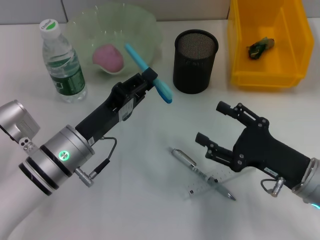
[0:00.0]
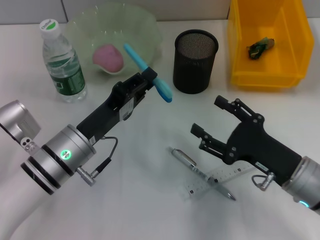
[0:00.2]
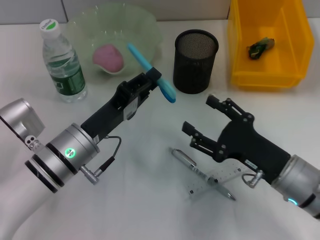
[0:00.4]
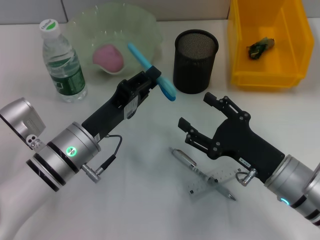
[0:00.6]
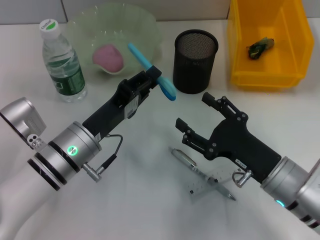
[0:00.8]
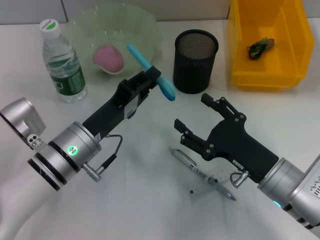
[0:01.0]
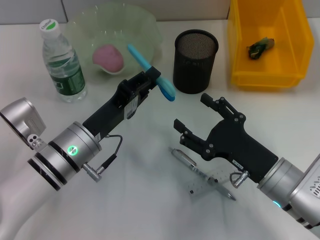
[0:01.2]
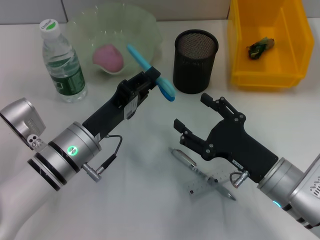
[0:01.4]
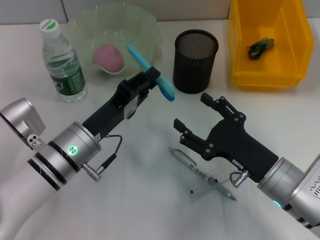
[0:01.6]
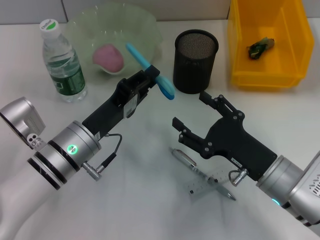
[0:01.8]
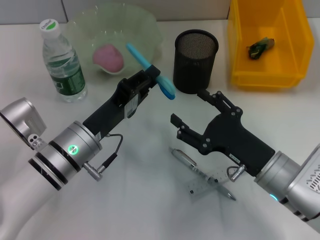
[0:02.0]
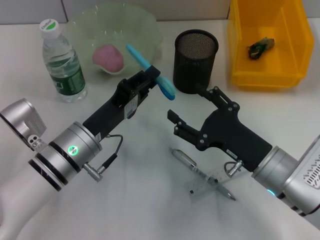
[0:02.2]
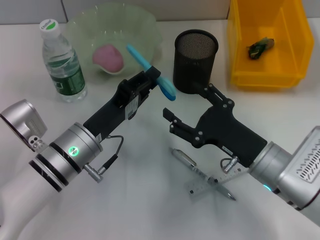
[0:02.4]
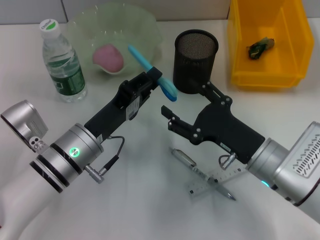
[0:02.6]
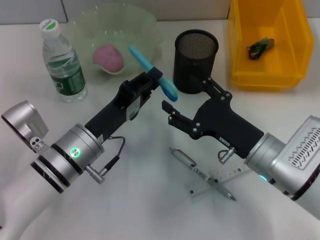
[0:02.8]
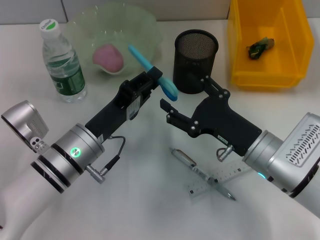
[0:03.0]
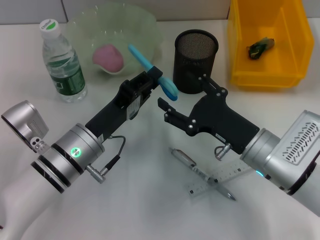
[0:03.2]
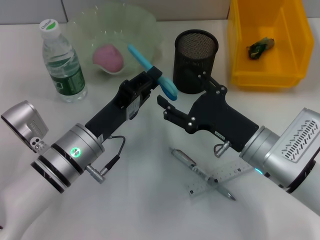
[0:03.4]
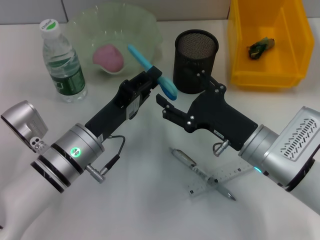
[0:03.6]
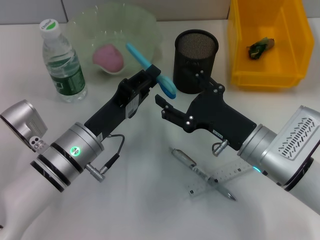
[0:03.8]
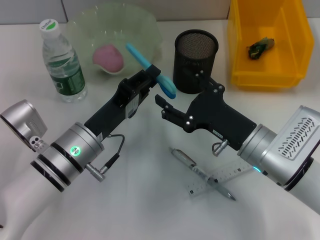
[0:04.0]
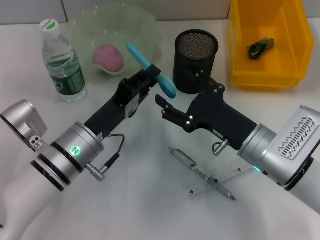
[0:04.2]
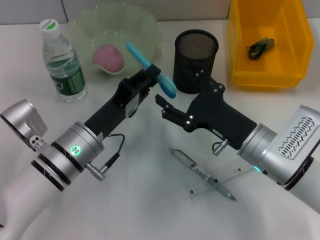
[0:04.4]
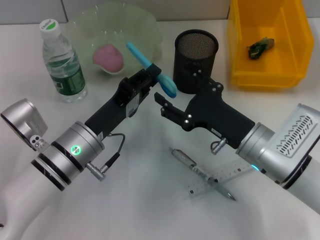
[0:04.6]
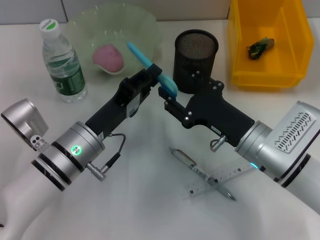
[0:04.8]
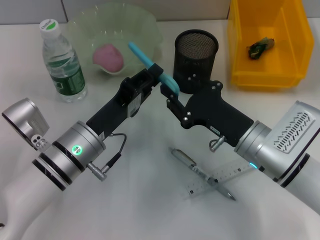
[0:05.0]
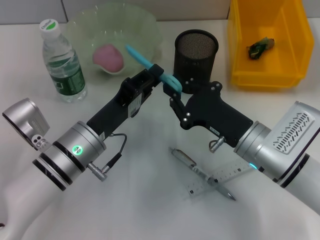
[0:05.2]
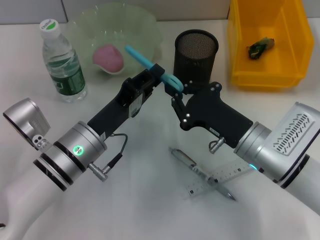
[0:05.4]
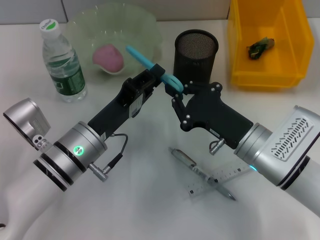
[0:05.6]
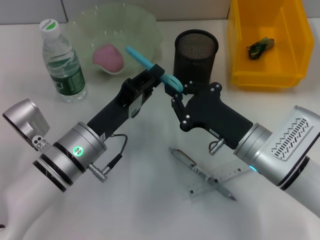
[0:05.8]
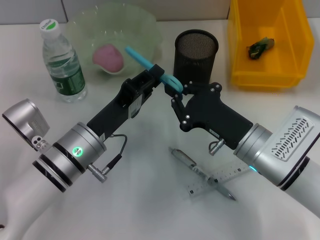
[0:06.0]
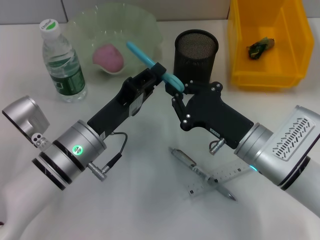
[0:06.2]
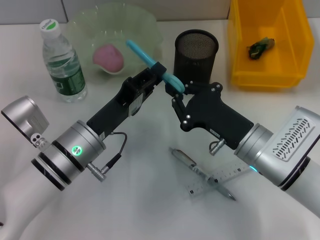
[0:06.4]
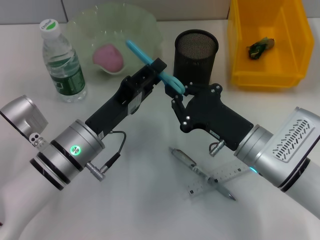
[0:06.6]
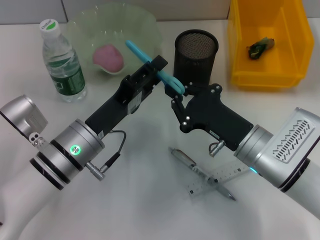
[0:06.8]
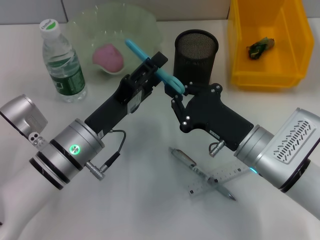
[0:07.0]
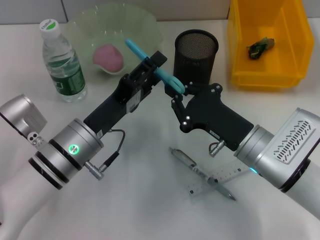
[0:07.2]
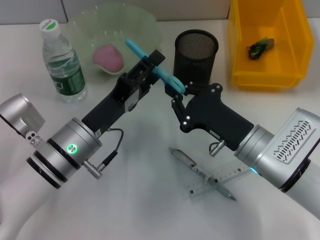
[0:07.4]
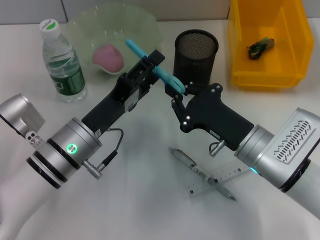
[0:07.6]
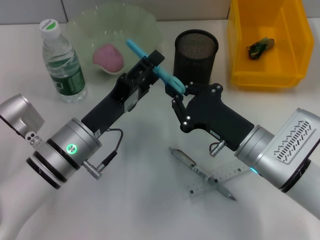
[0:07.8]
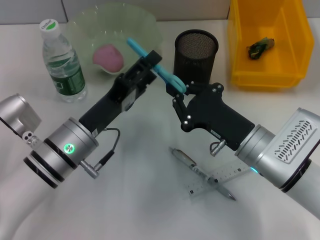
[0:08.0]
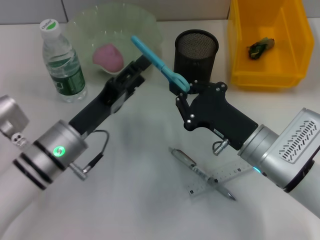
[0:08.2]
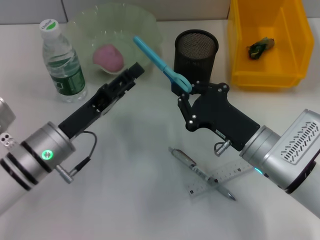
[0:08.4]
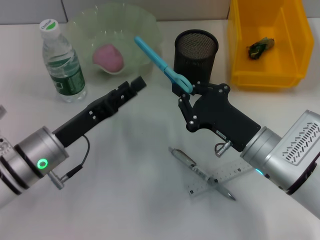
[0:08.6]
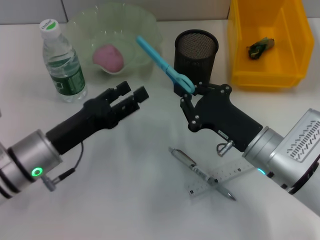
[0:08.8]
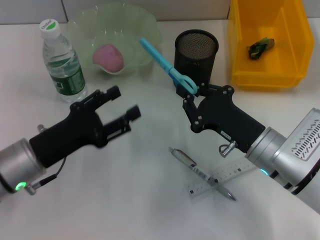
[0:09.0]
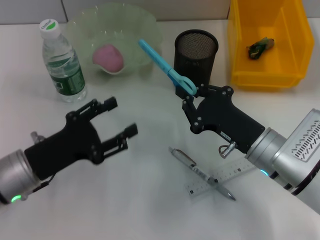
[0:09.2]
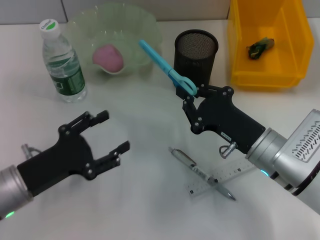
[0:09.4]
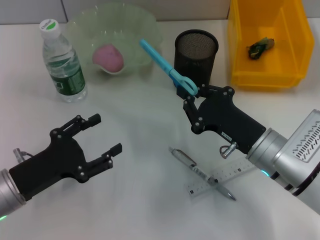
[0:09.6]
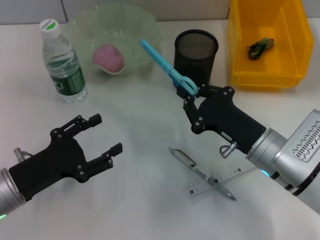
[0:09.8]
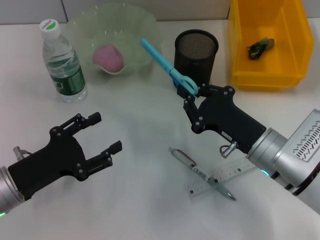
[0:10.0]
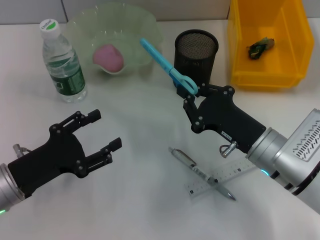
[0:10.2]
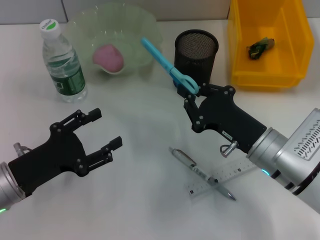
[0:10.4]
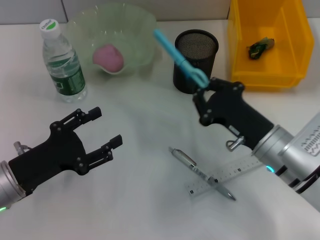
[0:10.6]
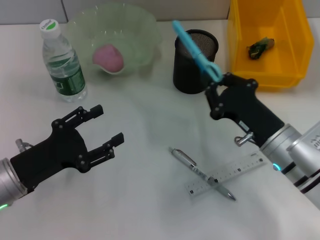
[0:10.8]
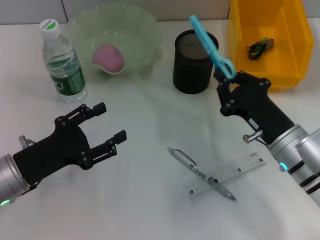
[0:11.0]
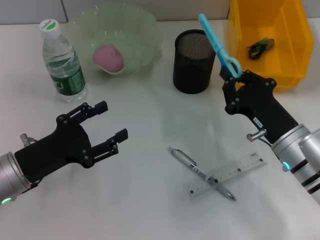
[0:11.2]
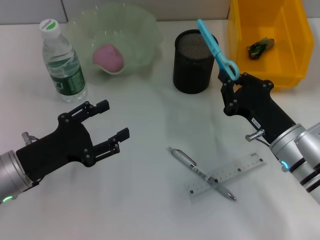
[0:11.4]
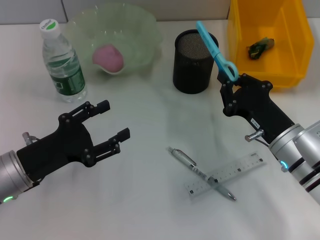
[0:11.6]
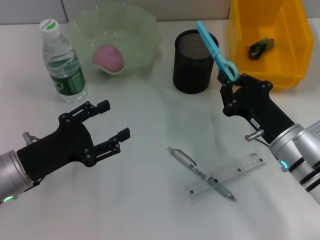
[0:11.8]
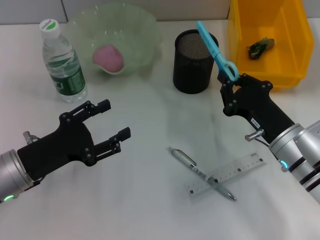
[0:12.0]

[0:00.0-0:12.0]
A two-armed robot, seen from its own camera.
Step, 0:00.0 to 0:06.8: Pass the blue scissors from the left hand to the right hand.
0:00.0 to 0:01.6: The right gripper ends up roughly 5 cm from where it was.
0:01.6 to 0:03.0: There are only small adjustments of the grippers.
0:03.0 to 0:04.4: Both grippers stay put.
0:04.4 to 0:06.0: The right gripper closes.
0:06.0 to 0:07.6: The left gripper opens.
0:07.6 to 0:09.0: The left gripper moves to the left, approximately 10 cm.
0:10.4 to 0:12.0: The grippers move only a little.

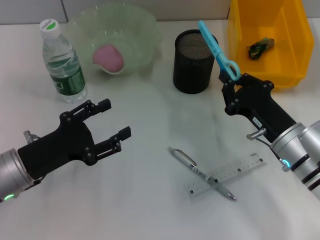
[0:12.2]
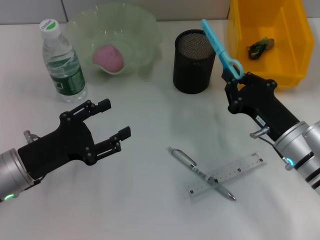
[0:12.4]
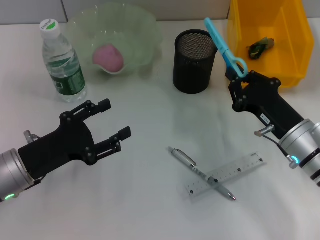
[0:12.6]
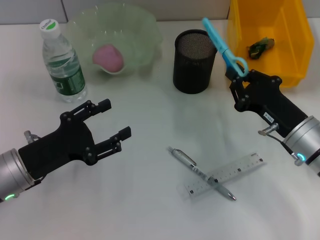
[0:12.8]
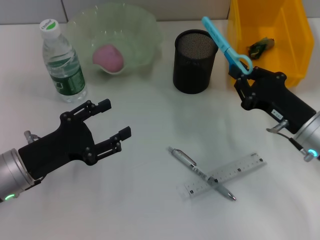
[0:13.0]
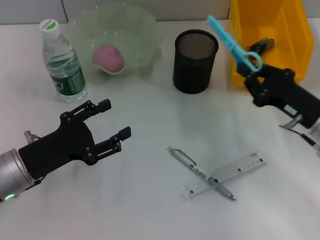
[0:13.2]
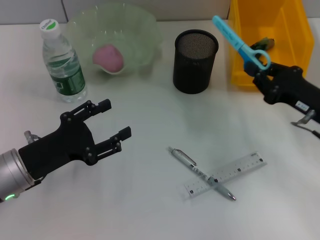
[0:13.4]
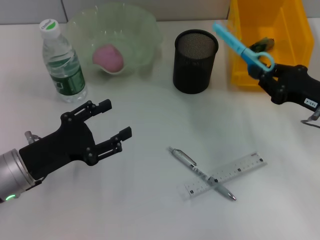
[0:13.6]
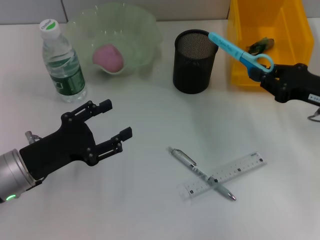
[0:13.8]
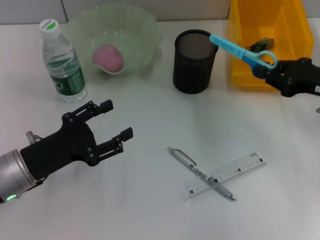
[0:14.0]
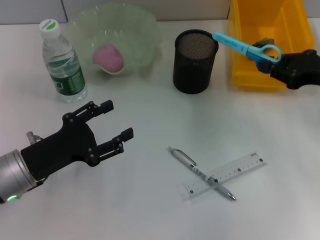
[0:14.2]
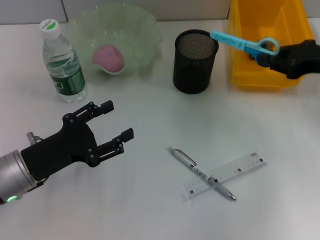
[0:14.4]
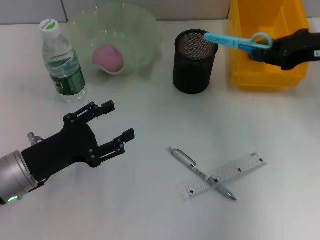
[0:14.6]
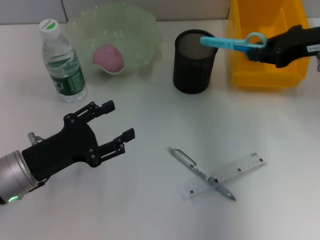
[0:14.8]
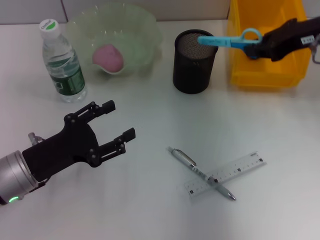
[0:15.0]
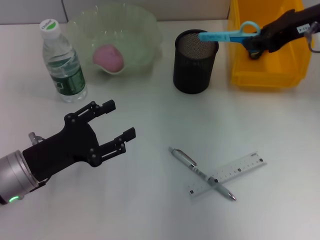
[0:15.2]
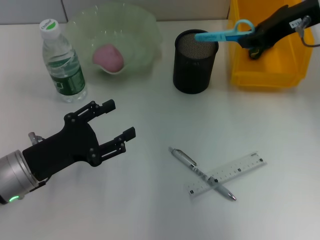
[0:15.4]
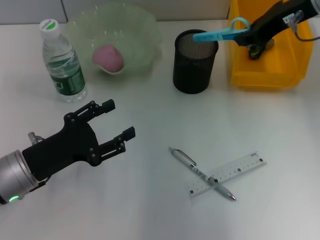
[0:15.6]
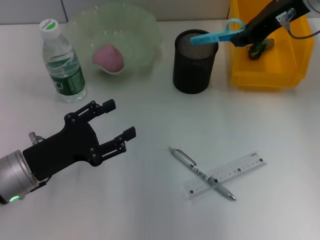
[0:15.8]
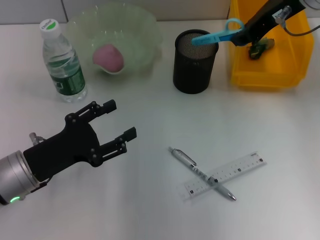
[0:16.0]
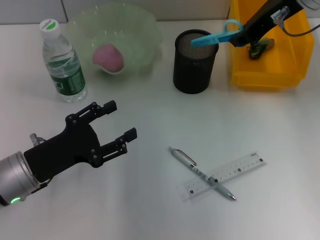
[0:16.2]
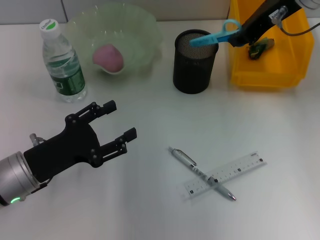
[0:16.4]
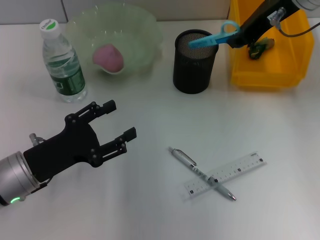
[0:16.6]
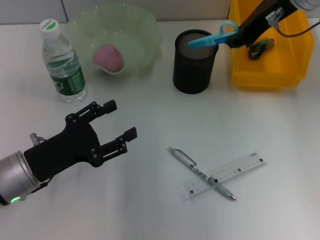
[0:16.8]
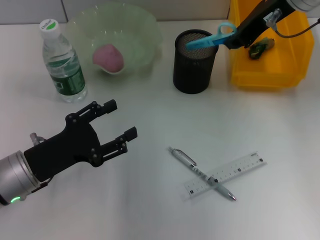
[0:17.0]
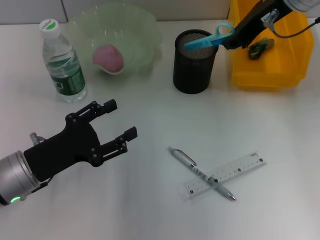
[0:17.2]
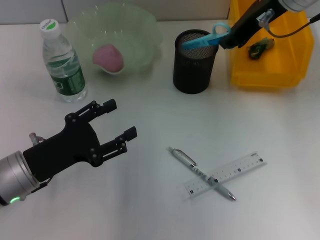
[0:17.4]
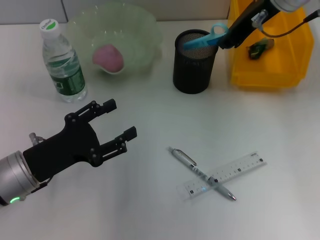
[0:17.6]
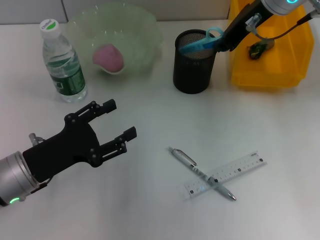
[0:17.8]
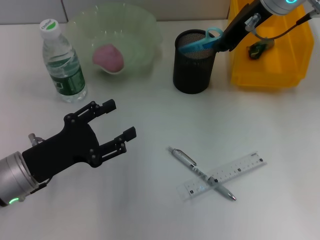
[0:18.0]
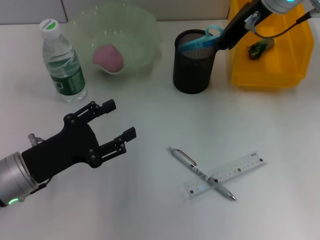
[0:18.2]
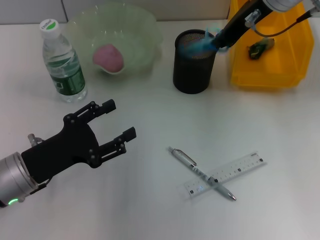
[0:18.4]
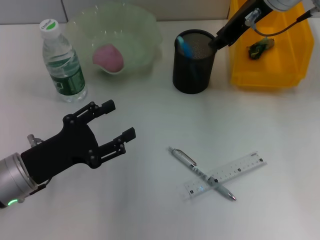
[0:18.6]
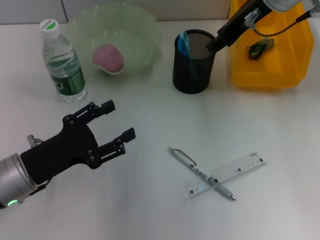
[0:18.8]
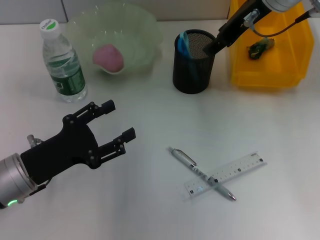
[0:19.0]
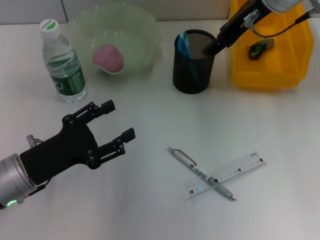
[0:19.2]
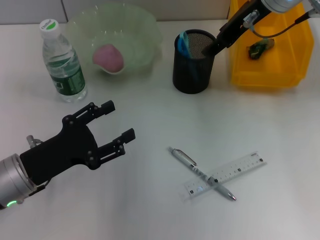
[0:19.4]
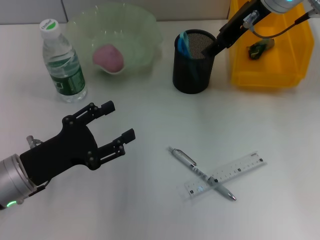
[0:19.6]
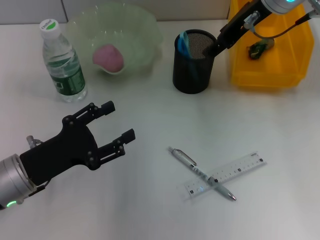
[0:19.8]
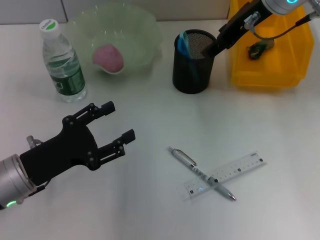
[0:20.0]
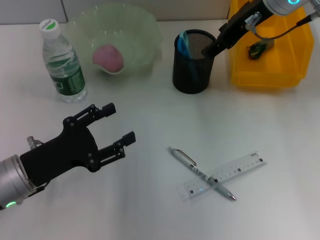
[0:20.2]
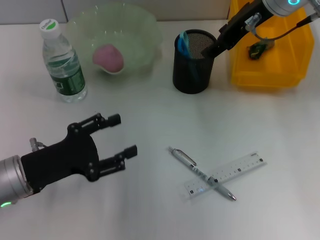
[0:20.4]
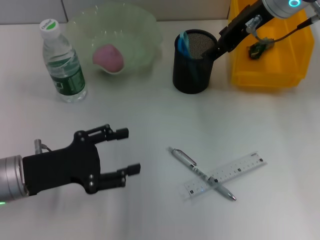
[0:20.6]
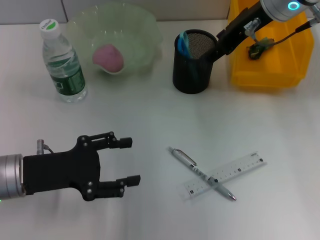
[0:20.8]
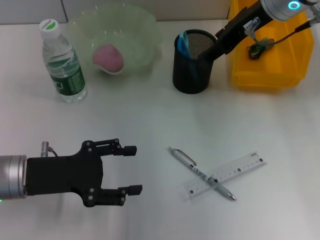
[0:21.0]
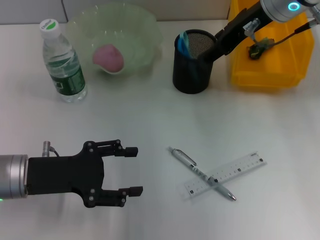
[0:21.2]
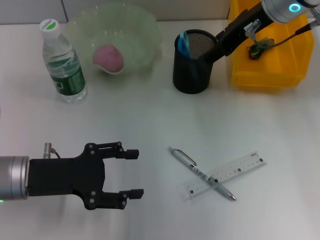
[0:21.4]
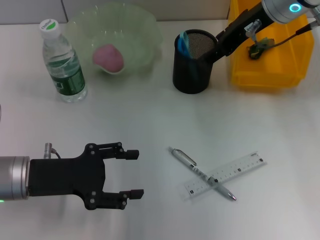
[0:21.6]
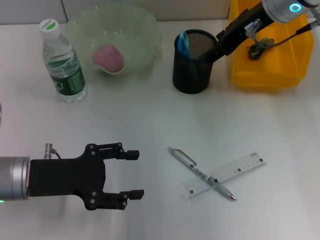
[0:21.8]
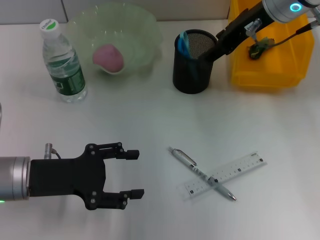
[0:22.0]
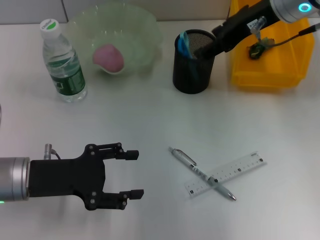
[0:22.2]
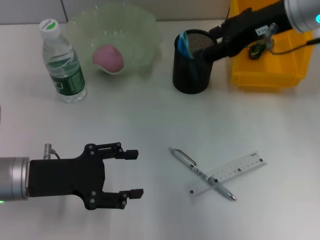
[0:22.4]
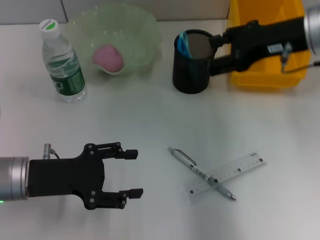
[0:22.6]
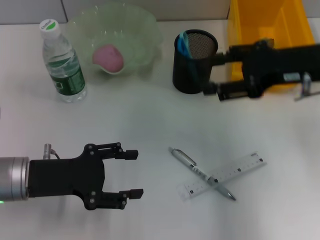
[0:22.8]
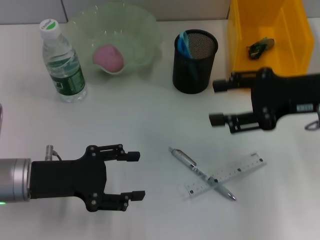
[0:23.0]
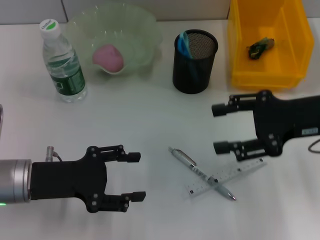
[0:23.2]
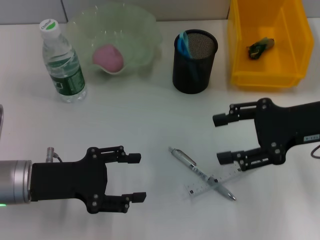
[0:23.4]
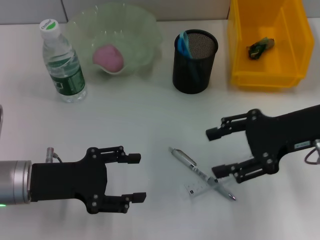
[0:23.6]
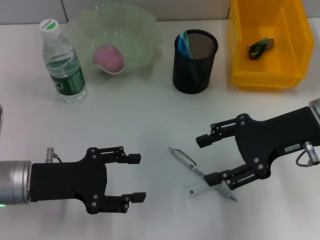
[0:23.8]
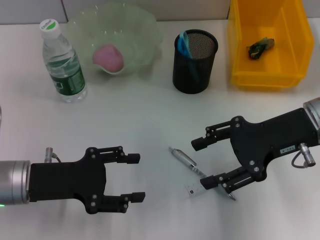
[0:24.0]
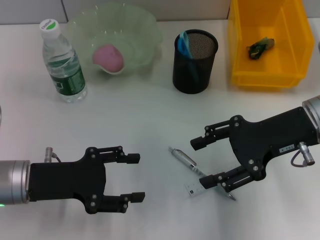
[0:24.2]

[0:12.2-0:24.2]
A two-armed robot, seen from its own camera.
Step, 0:12.2 to 0:19.0: Place the blue scissors into the pen holder with the right hand.
0:12.2 to 0:13.8: The right gripper shifts about 15 cm to the right, upward and forward.
0:13.8 to 0:15.2: The right gripper shifts approximately 15 cm upward, forward and to the left.
0:15.2 to 0:16.6: The right gripper is displaced to the left by about 5 cm.
0:16.6 to 0:18.2: The grippers stay close to where they were, moving slightly.
0:18.2 to 0:19.8: The right gripper opens.
0:21.2 to 0:22.6: The right gripper goes about 10 cm to the right and backward.
0:22.6 to 0:24.2: The right gripper travels downward and backward by about 10 cm.
